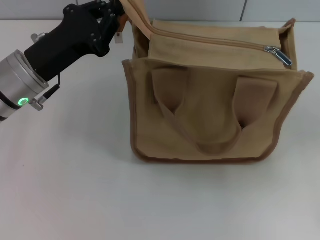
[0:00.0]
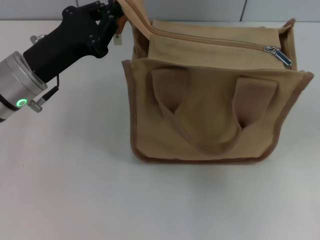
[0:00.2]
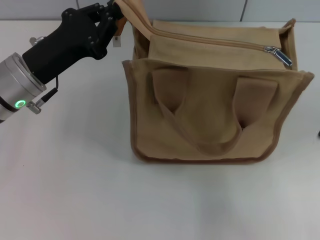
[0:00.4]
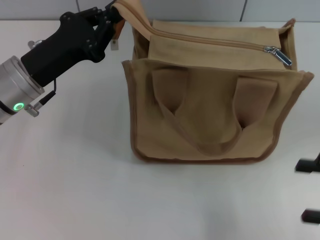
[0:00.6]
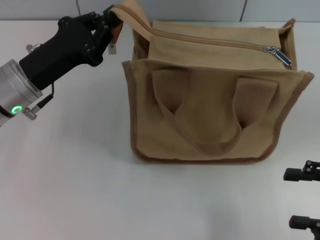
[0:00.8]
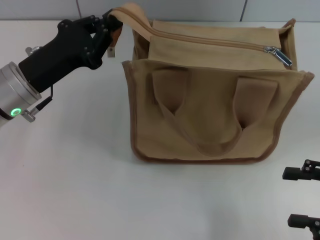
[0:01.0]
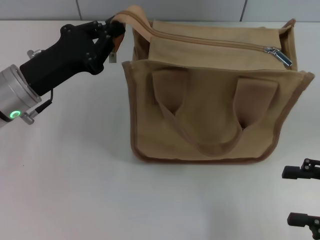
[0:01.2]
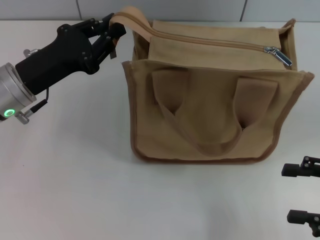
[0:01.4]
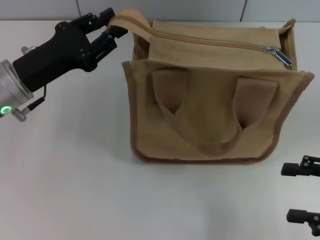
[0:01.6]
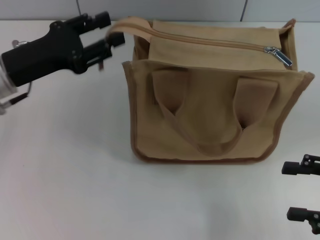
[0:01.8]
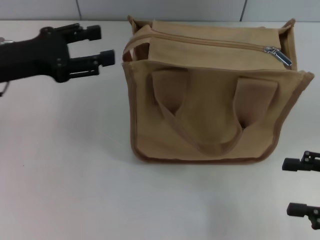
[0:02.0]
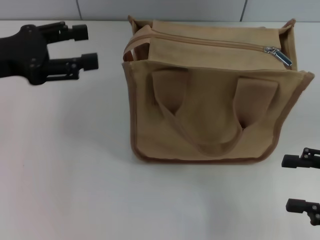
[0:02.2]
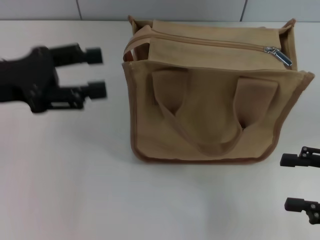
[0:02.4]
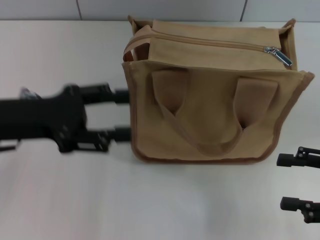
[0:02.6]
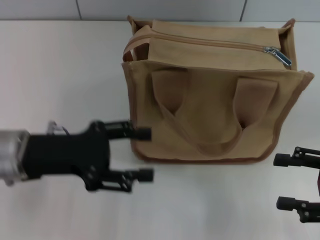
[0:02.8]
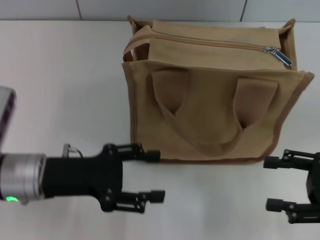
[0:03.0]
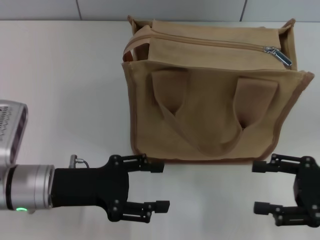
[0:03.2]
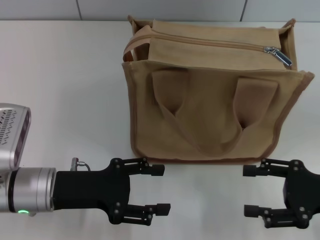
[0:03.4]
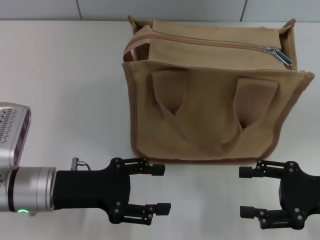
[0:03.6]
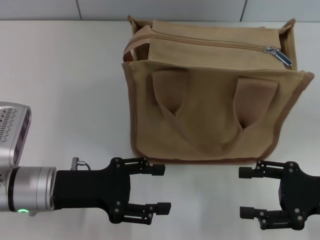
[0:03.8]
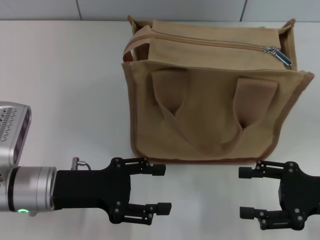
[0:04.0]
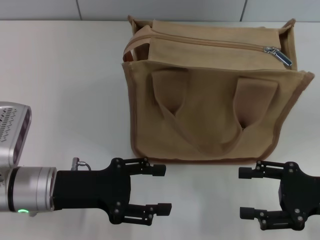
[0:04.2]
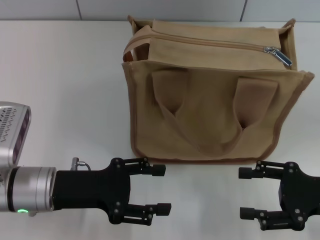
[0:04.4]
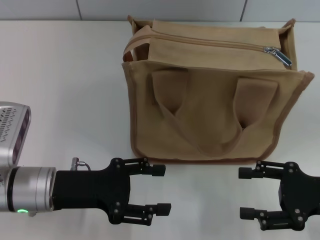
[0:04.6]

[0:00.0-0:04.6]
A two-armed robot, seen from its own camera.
Step, 0:00.0 to 0:02.2: Grab the zipper with your left hand.
0:00.0 to 0:01.6: The right gripper shifts roughly 10 cm downward and backward.
0:01.6 to 0:03.0: The left gripper shifts roughly 5 cm backward, and opens.
0:03.0 to 0:04.6: The grippers move only a little.
